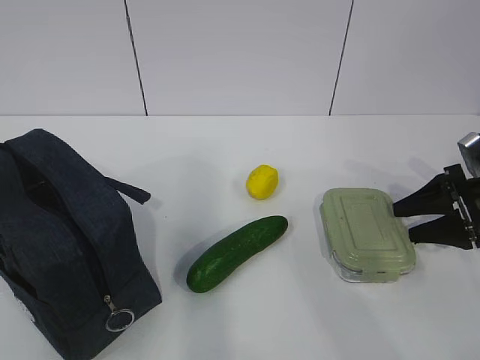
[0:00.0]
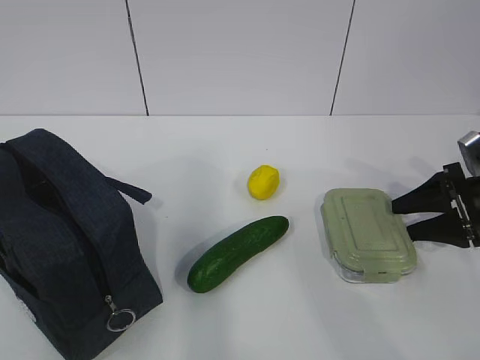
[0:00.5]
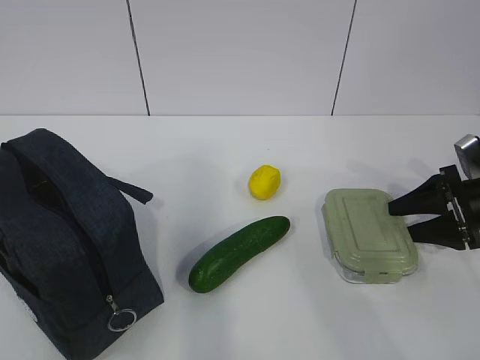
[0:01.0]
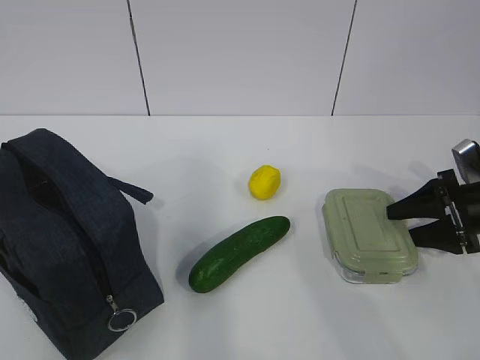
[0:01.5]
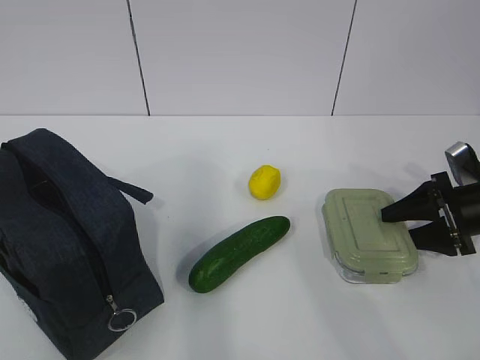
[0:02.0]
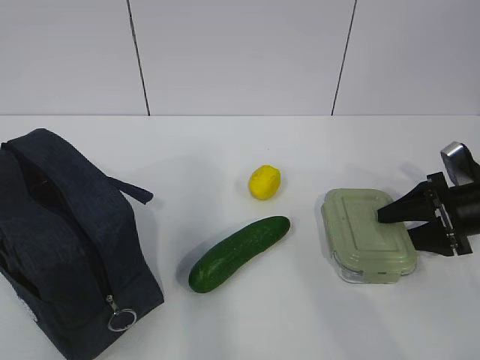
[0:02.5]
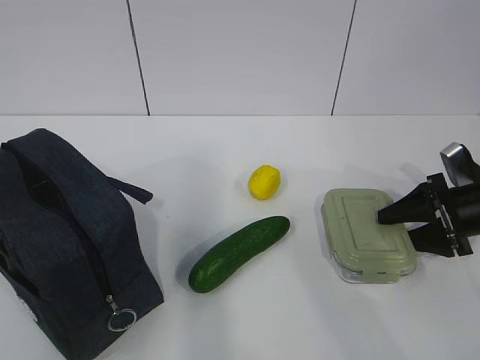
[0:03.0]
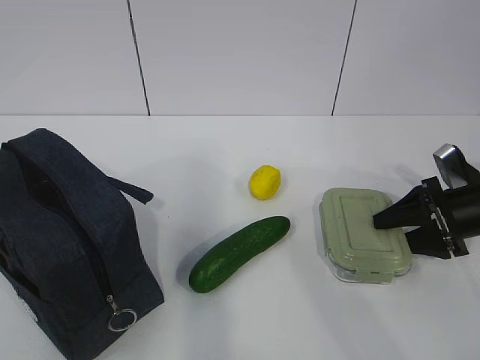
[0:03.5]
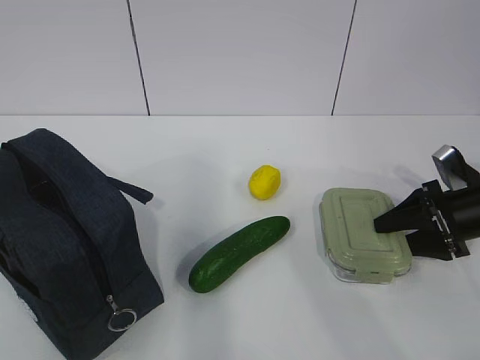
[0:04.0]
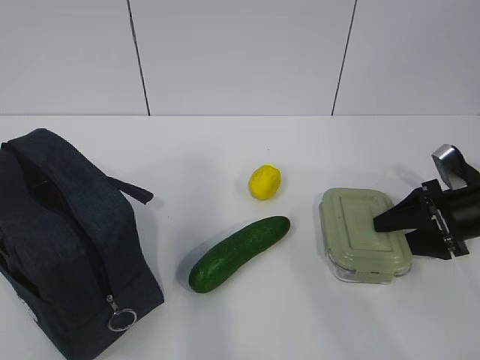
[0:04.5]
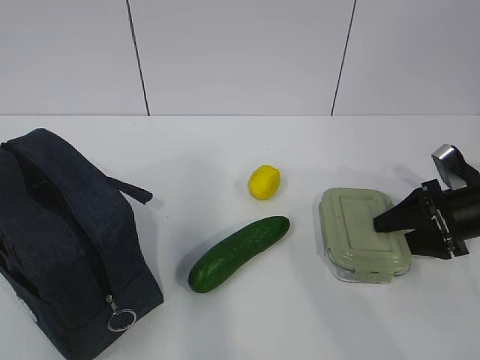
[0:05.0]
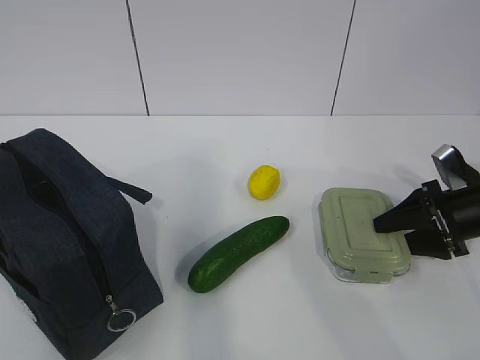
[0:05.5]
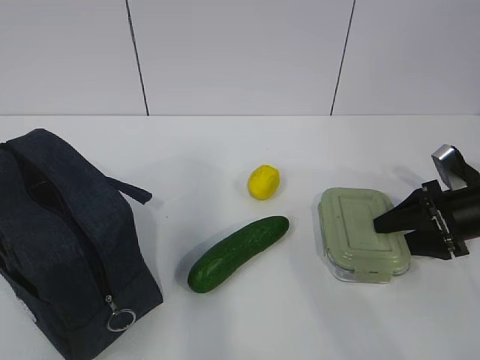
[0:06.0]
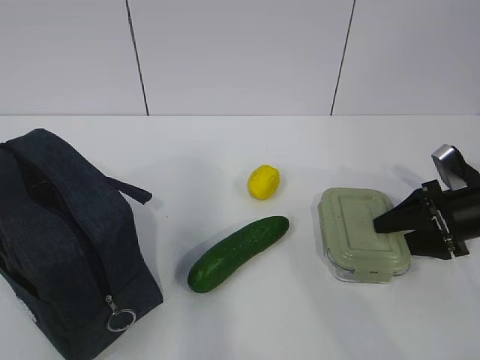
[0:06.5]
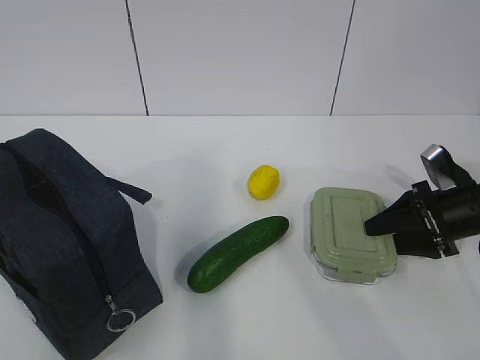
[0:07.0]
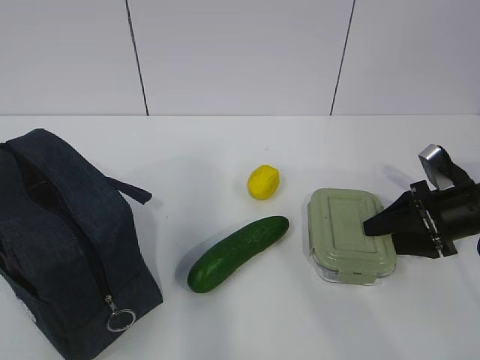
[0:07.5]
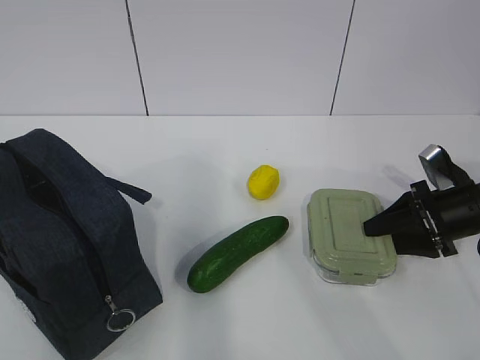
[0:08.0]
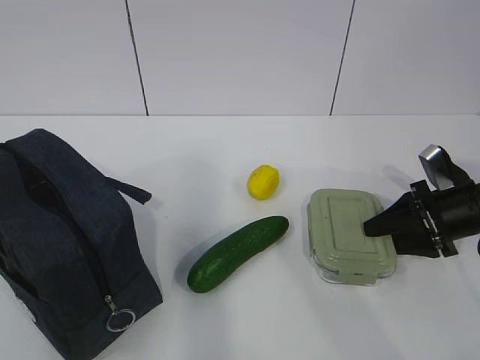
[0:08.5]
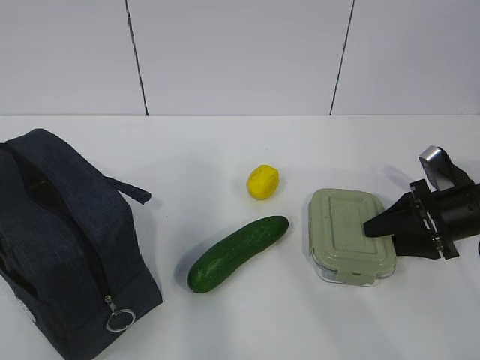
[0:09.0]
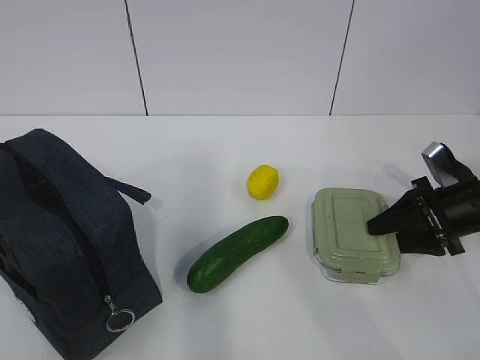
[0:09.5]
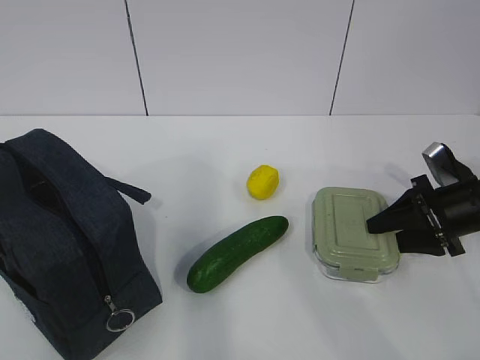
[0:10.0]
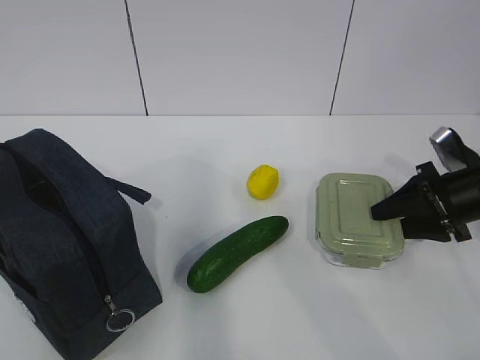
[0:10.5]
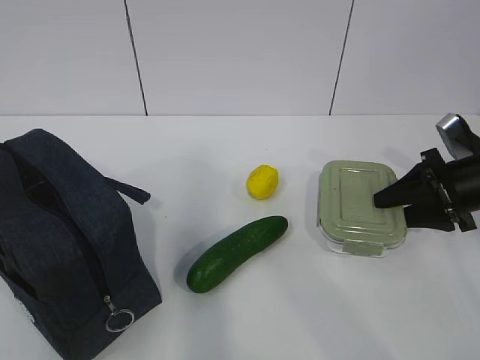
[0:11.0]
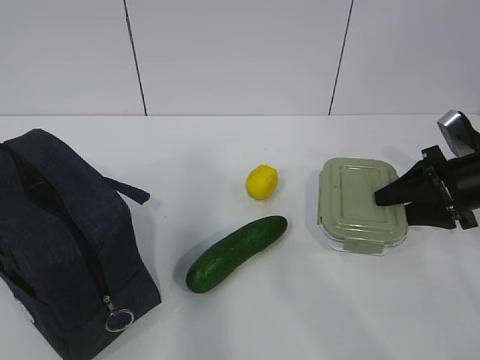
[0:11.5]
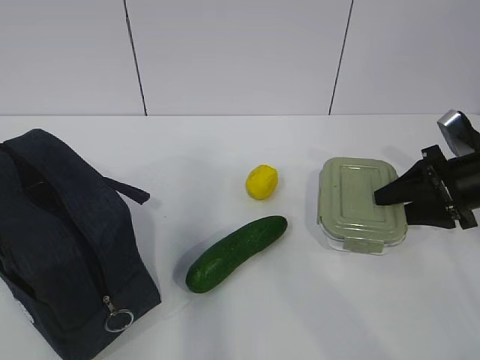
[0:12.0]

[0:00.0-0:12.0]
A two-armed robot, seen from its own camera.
Step, 0.0 to 6.0 s: Grab the lunch box with your right hand.
0.0 to 4.0 s: The grippers move only a little.
4.0 to 6.0 s: Both grippers stay about where they are.
6.0 to 8.0 s: There are only small adjustments of the grippers.
8.0 to 10.0 s: Neither gripper changes place.
10.0 to 12.0 s: The left gripper is displaced forward by roughly 15 cm.

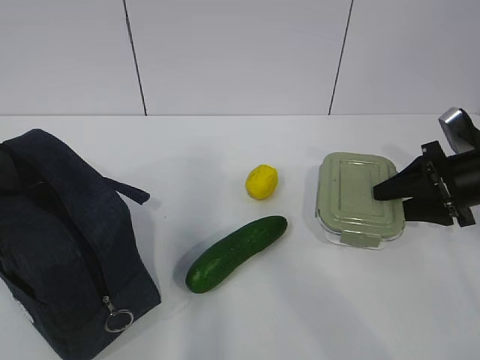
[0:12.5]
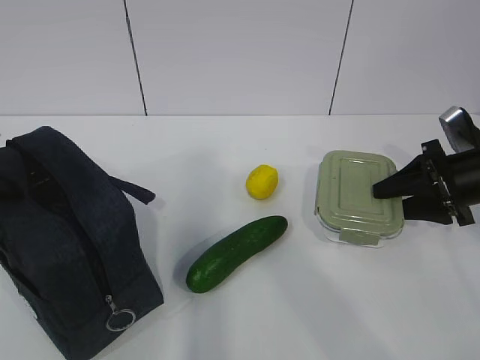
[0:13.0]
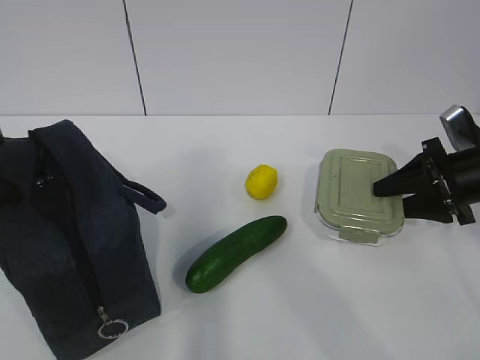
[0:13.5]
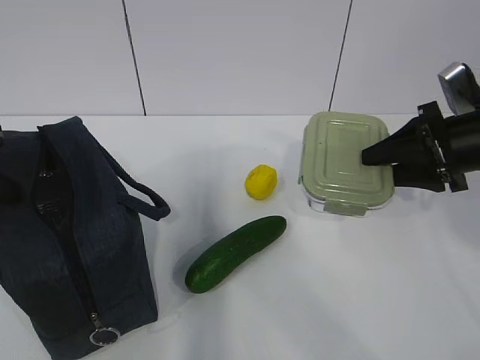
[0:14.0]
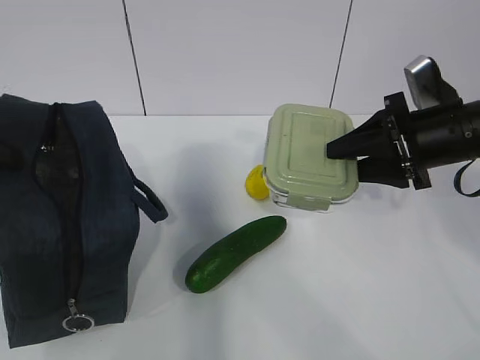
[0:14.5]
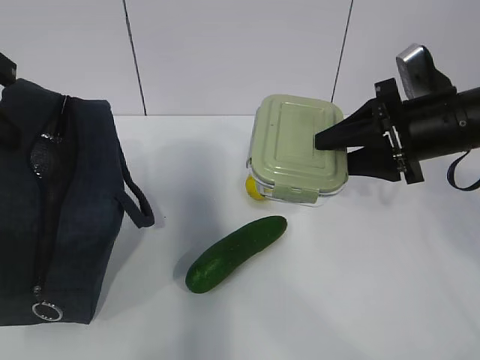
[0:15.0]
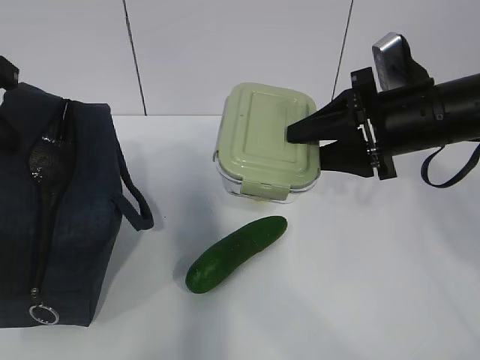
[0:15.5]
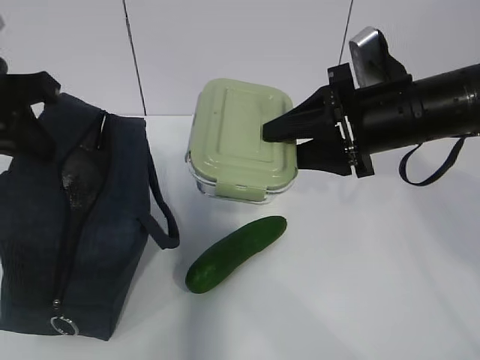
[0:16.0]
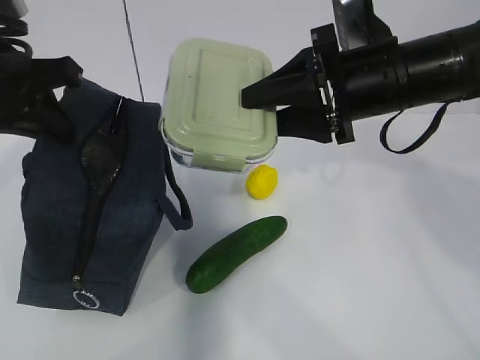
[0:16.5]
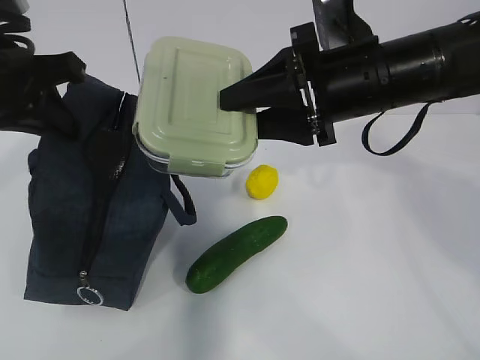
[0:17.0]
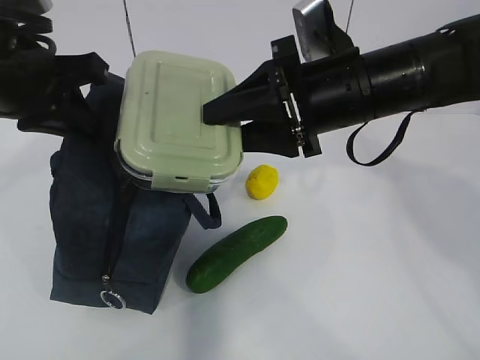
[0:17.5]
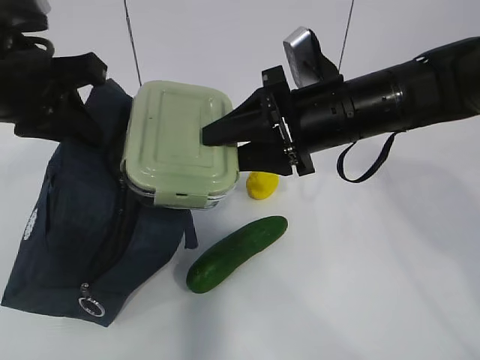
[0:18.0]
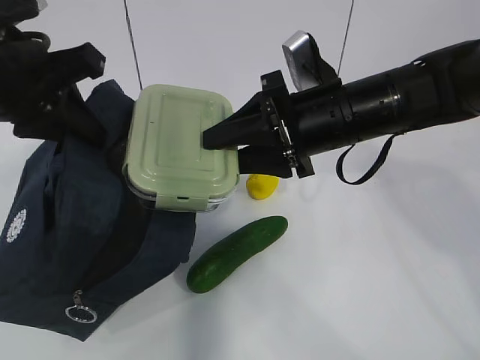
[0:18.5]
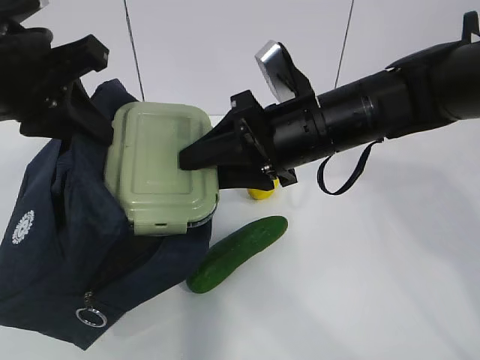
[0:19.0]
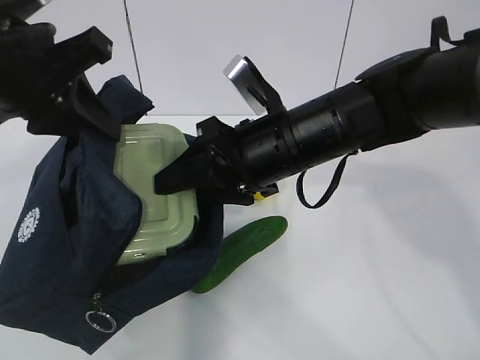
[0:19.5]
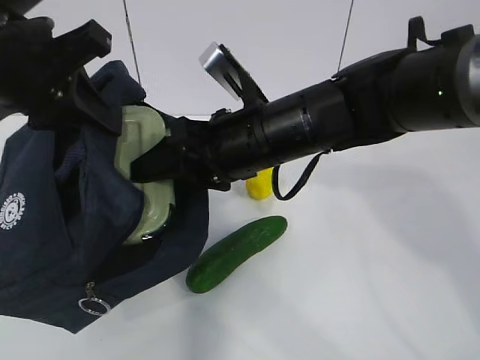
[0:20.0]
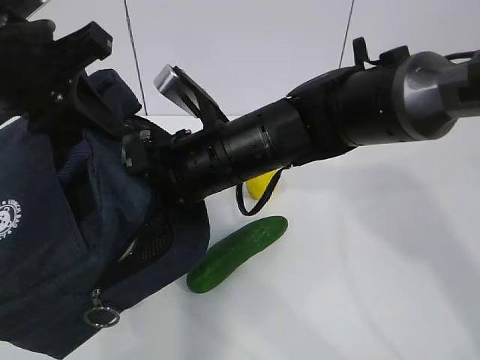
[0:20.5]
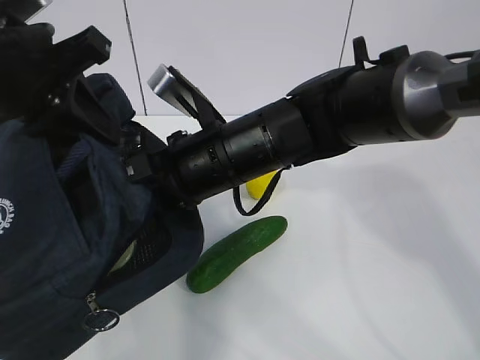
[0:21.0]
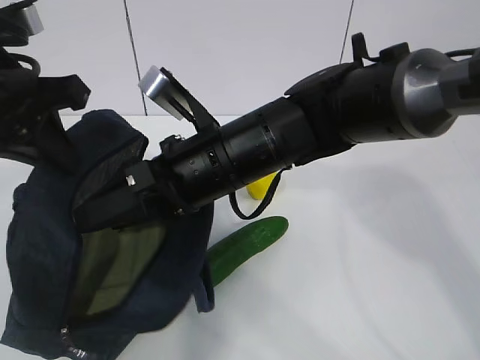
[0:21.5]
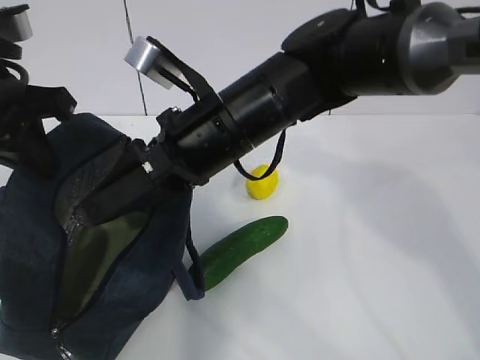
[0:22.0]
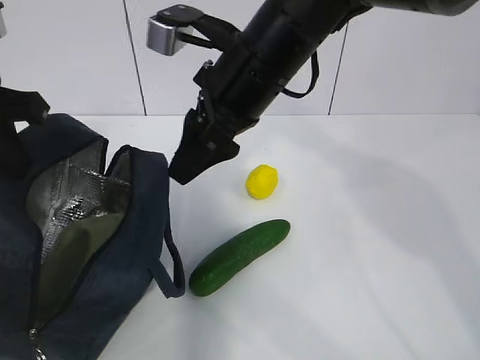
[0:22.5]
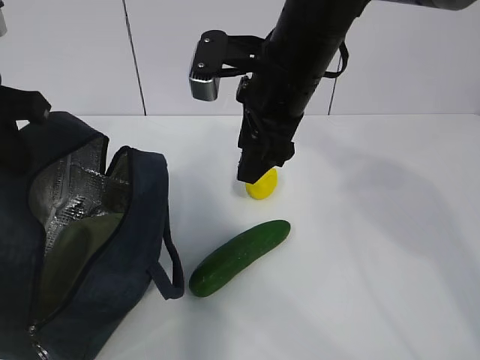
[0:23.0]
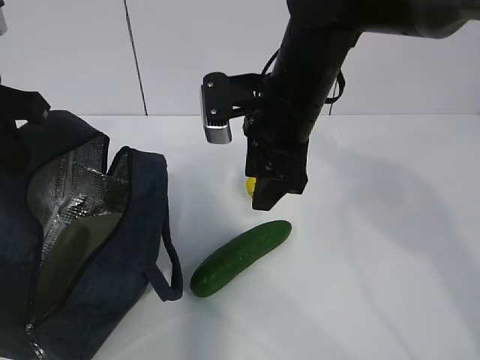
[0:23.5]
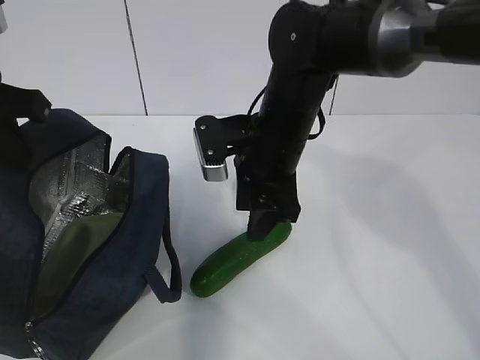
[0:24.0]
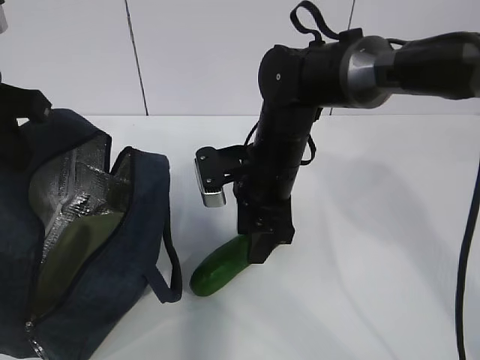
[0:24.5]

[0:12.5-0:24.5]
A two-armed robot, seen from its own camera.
Step, 13.5 to 15.5 s: Place it into the bag with your right hand.
Step, 16.0 to 19.0 s: Grab the cucumber with your right hand.
Step, 19.5 to 23.5 s: Place it into the bag with your right hand.
12.5 to 14.5 s: The left gripper closes. The right gripper moves to the left and upward, some 10 cm.
14.5 to 16.5 s: The left gripper moves forward, some 5 cm, while the right gripper travels to the left and upward by about 10 cm.
16.5 to 18.5 s: The right gripper changes place by approximately 5 cm.
18.5 to 20.5 s: The right gripper goes about 10 cm to the left.
20.5 to 22.5 s: The right gripper travels upward by some 5 cm.
22.5 to 24.5 s: The right gripper heads downward, covering some 15 cm.

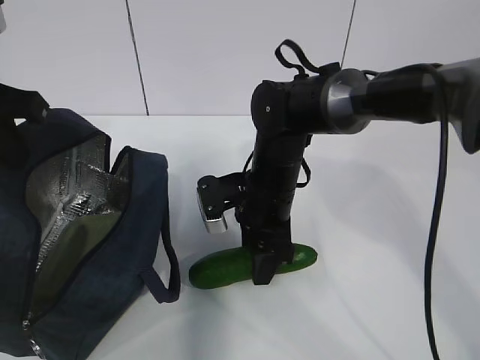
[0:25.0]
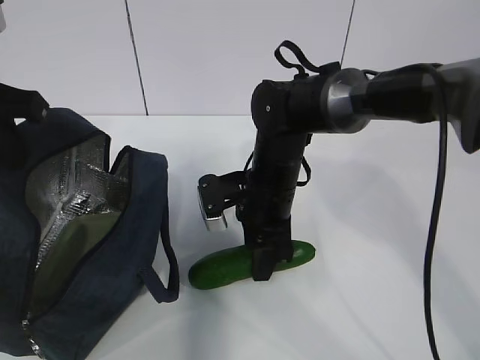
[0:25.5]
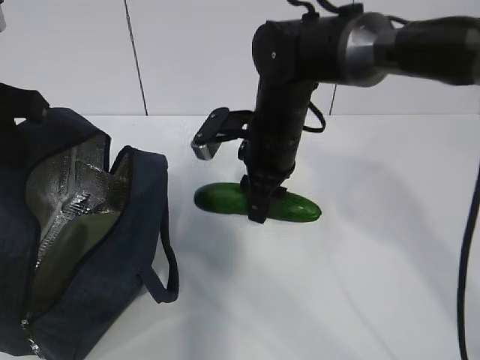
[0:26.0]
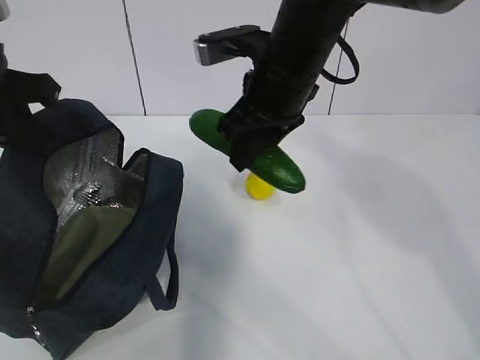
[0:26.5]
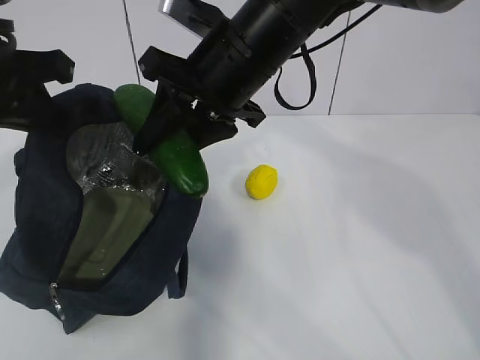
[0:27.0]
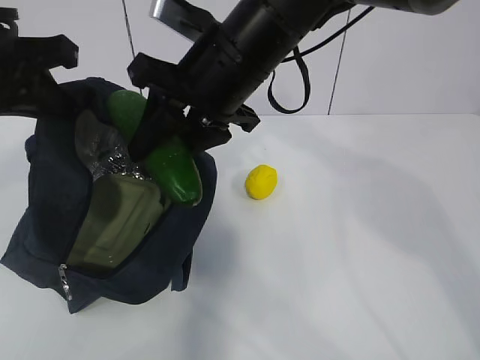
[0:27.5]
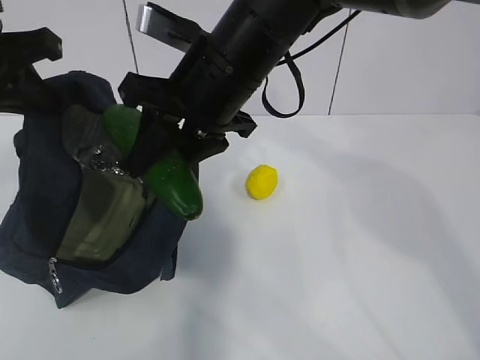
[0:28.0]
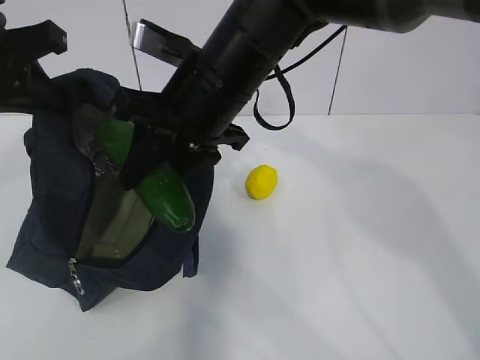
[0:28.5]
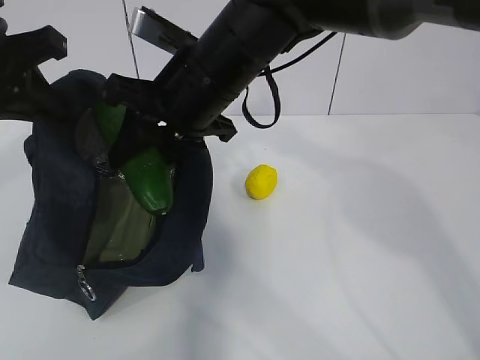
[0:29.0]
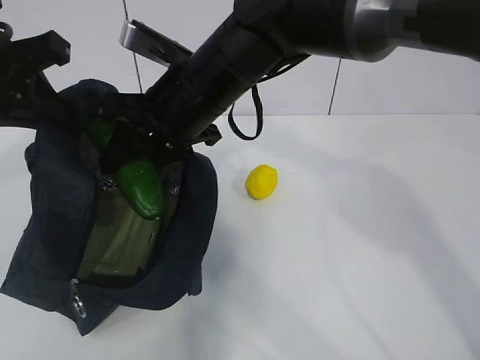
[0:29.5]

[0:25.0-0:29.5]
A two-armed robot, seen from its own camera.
Step, 25.0 to 26.5 s: Grab the lemon with your right hand.
25.0 to 27.0 s: The right gripper is displaced upward by about 20 cm.
27.0 to 29.5 s: The right gripper moves roughly 5 cm.
